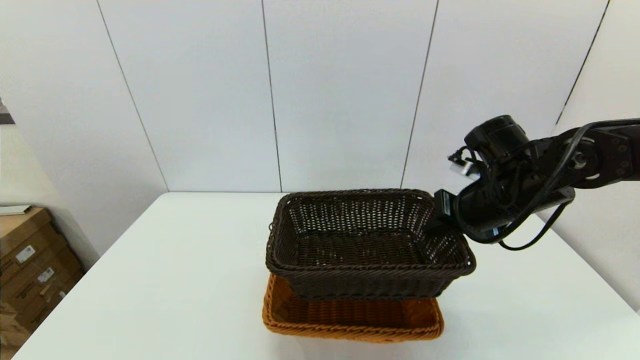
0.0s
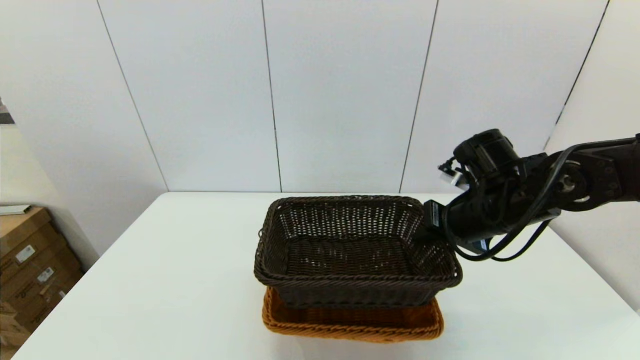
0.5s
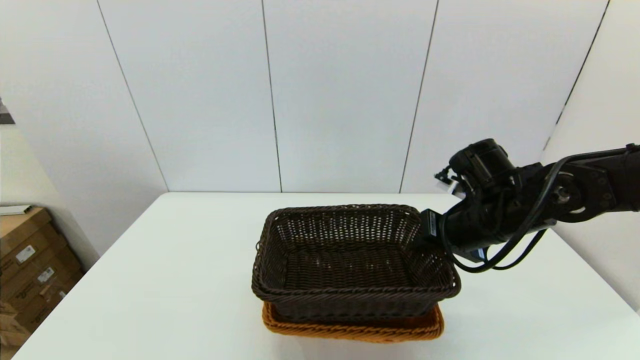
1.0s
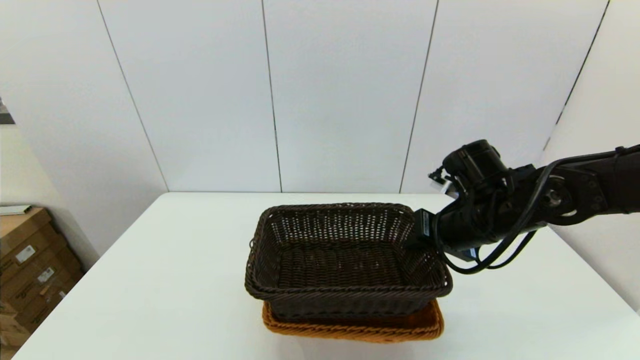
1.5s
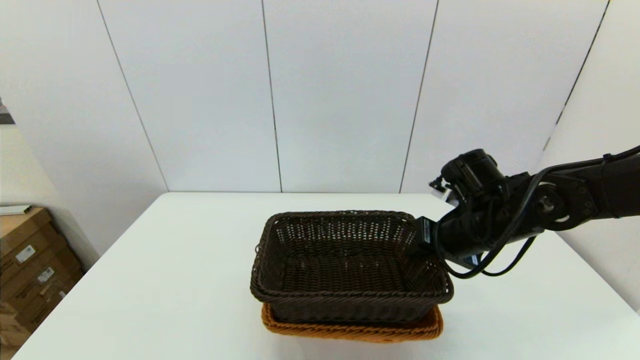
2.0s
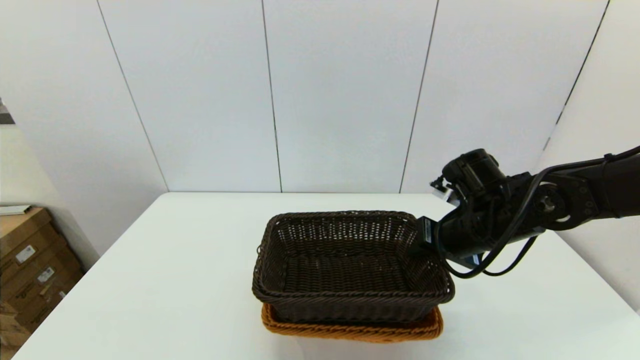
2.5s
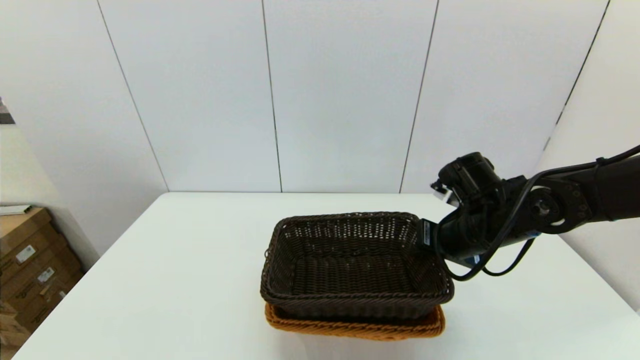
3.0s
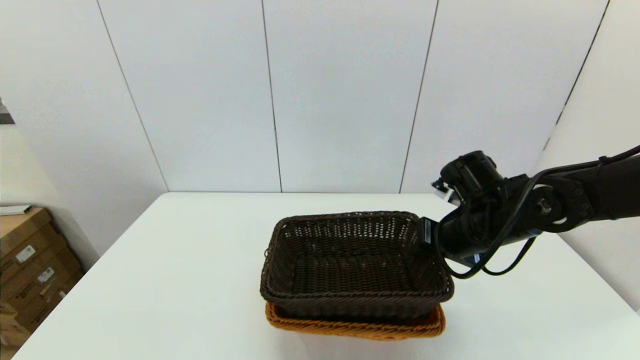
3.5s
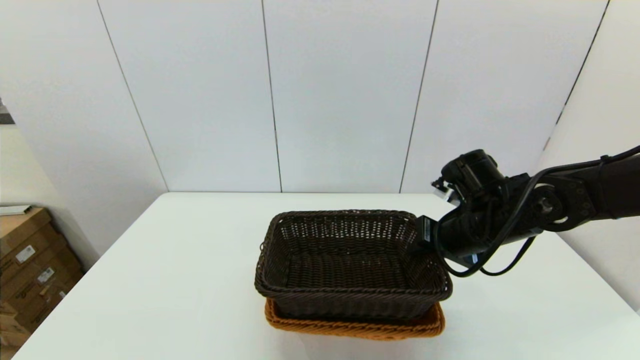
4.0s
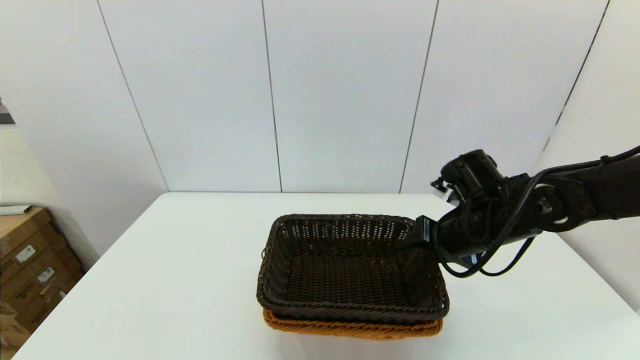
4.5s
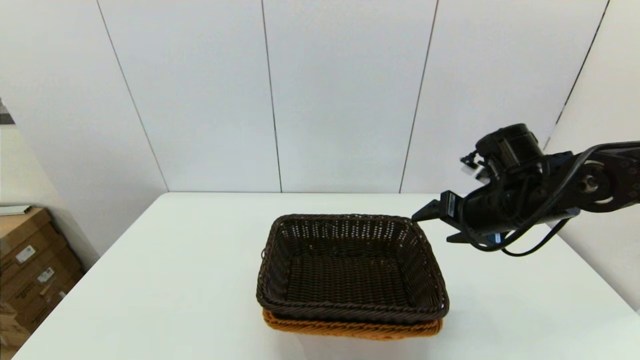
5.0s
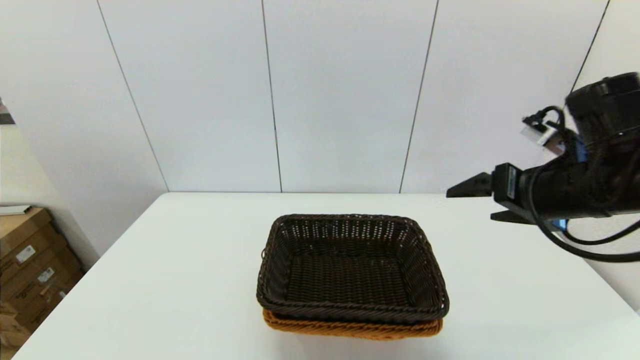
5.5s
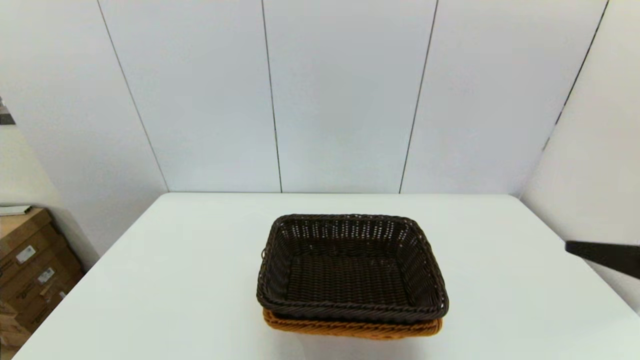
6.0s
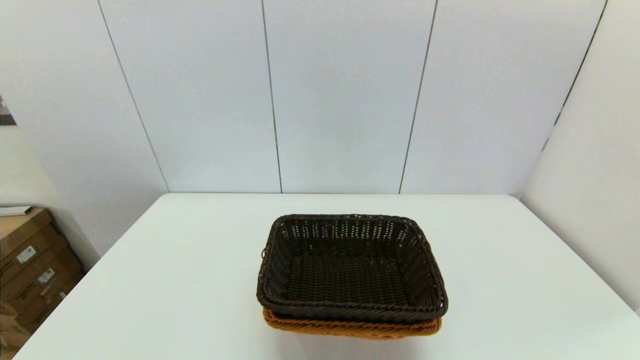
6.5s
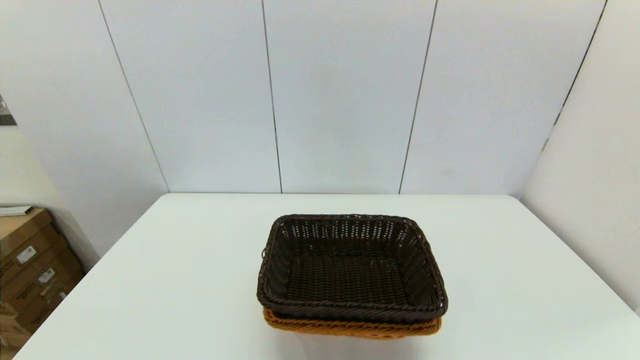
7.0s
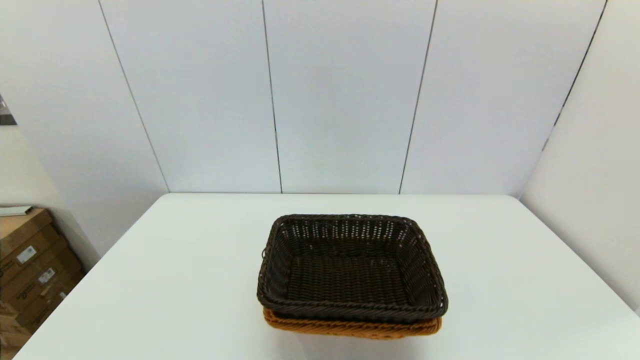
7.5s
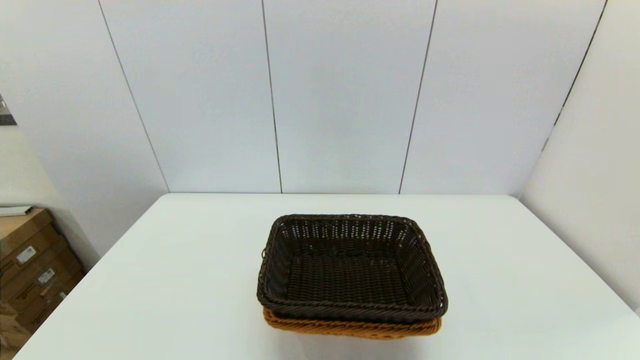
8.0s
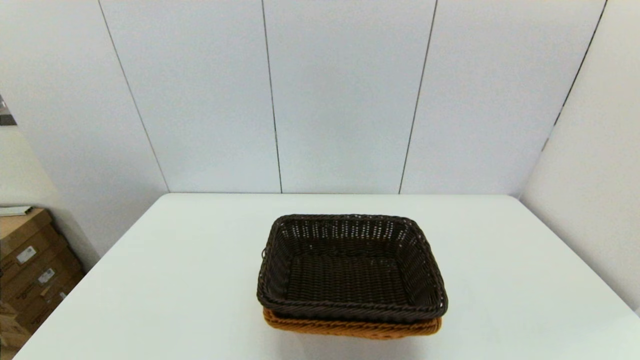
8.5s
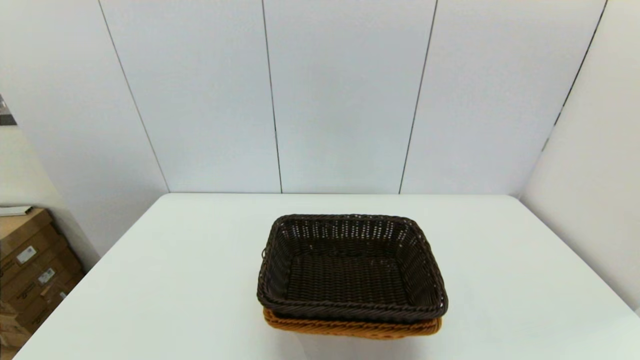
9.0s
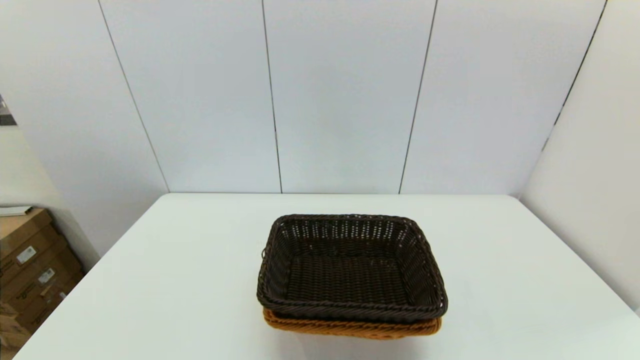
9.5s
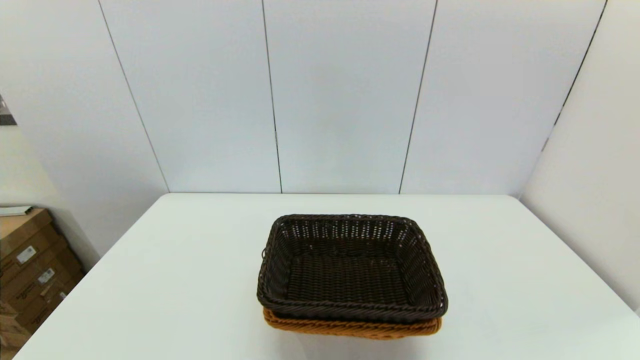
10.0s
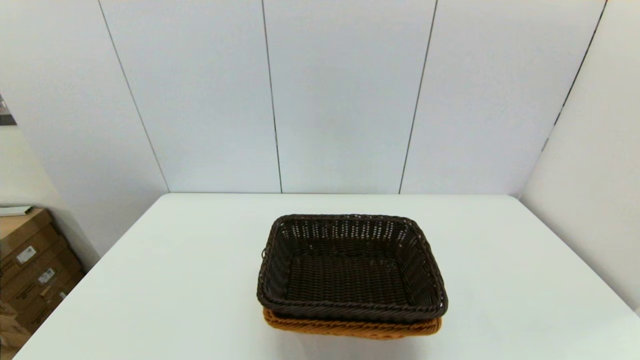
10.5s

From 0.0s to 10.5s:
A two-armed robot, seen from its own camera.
Task of the whole recording: stack a basket on top of another basket.
Step, from 0.0s to 5.0s: Place the dark basket into the light color basket with the right gripper.
From 0.0s to 2.0s: The right gripper ends up approximately 5 cm from where it was.
From 2.0s to 4.0s: The grippers make only small movements.
From 4.0s to 6.5s: The right gripper goes approximately 30 cm backward, and opens up.

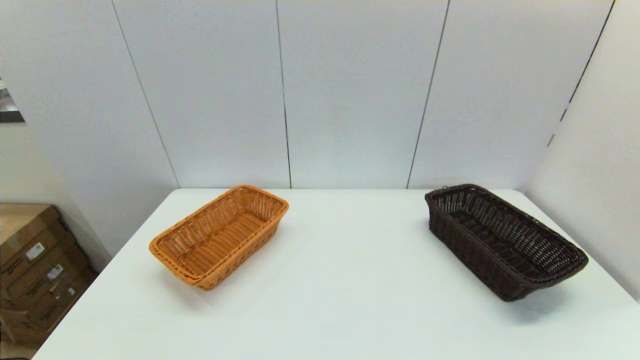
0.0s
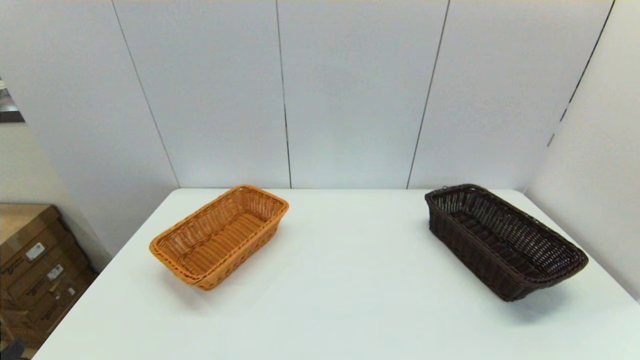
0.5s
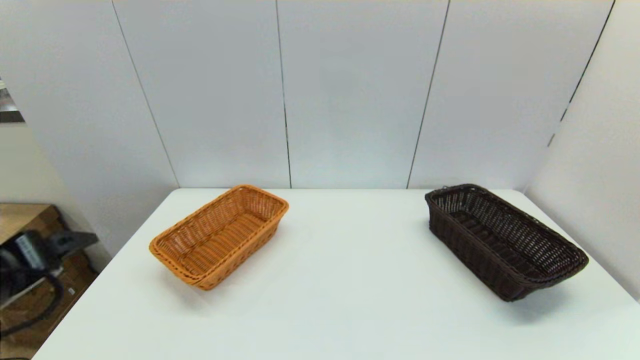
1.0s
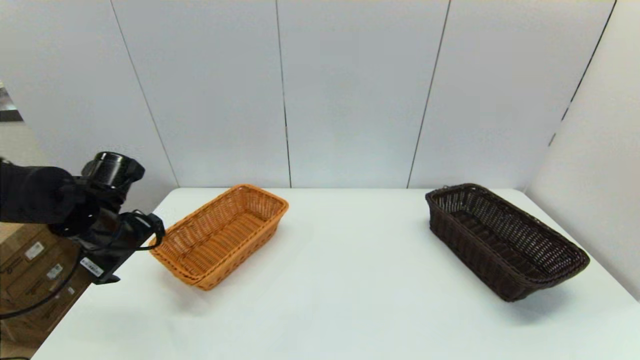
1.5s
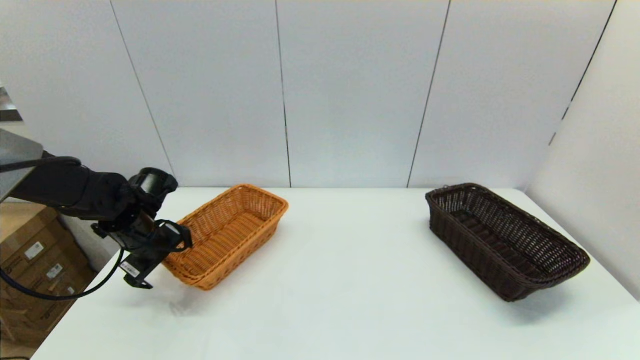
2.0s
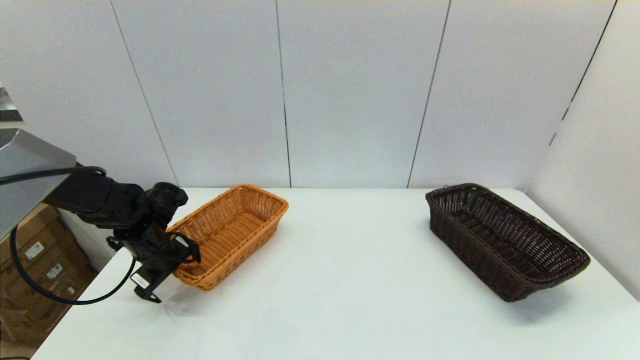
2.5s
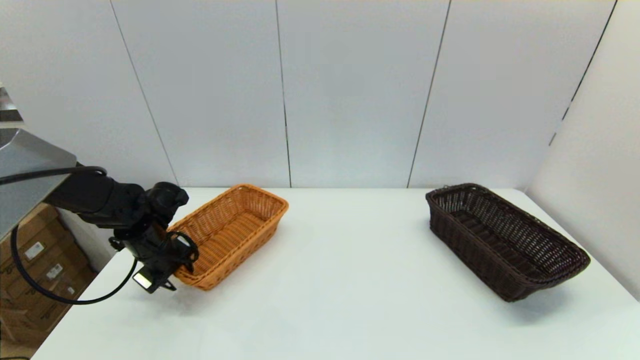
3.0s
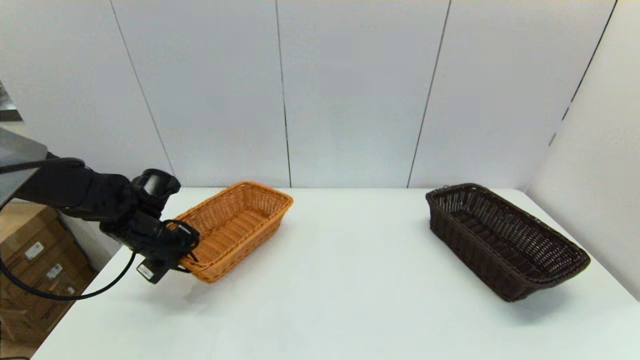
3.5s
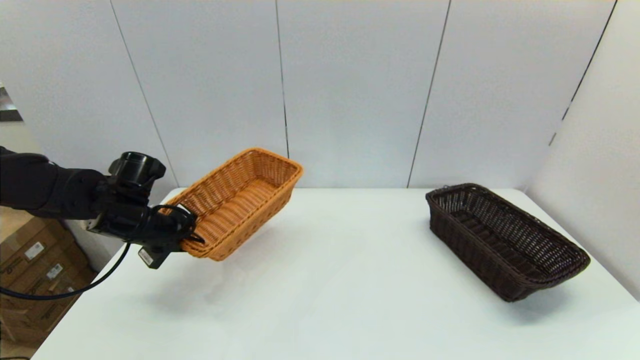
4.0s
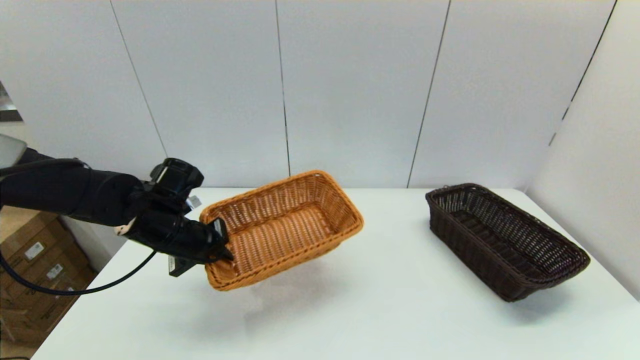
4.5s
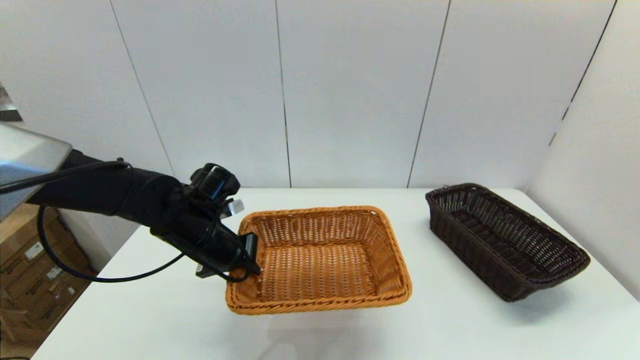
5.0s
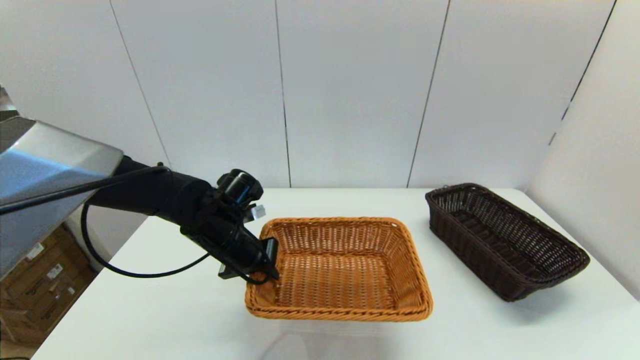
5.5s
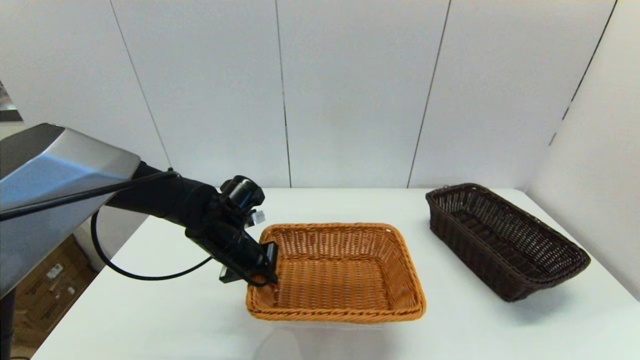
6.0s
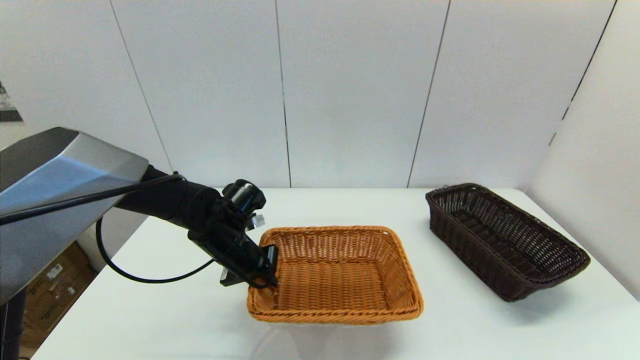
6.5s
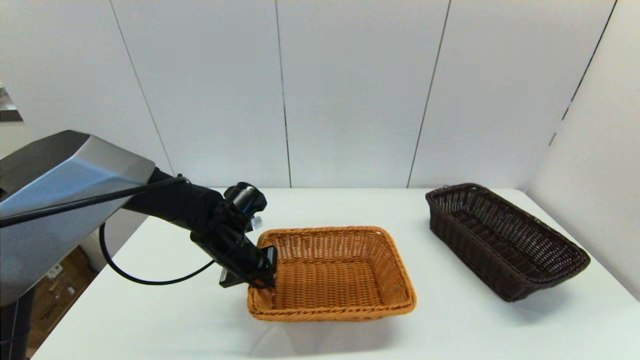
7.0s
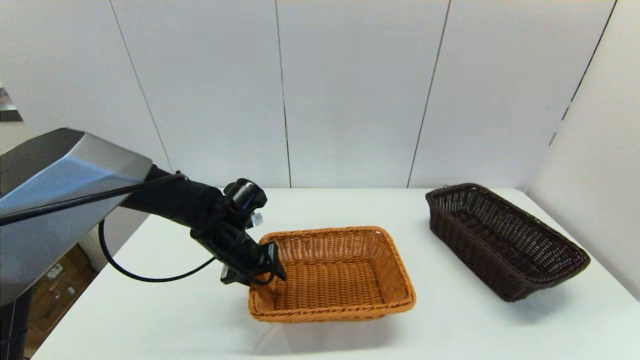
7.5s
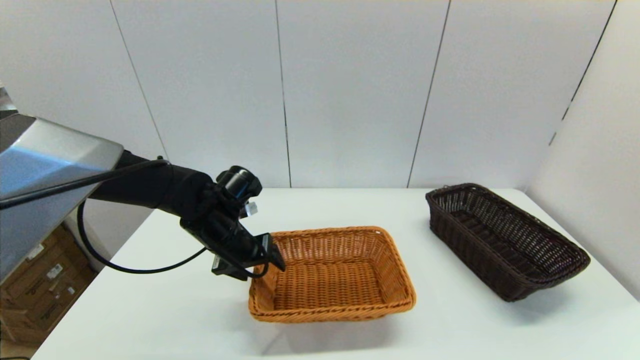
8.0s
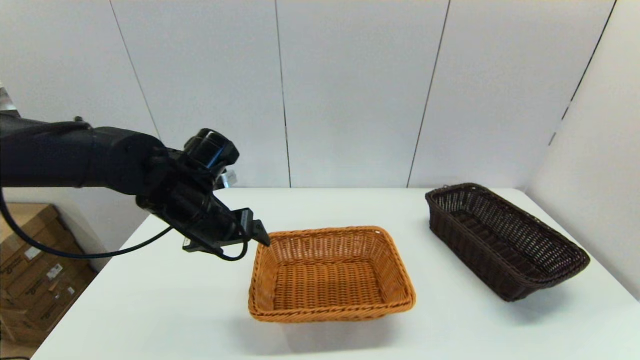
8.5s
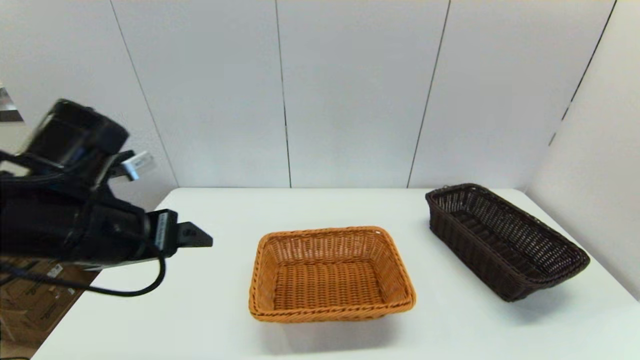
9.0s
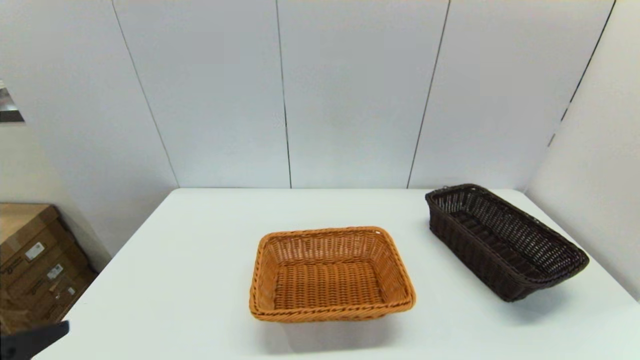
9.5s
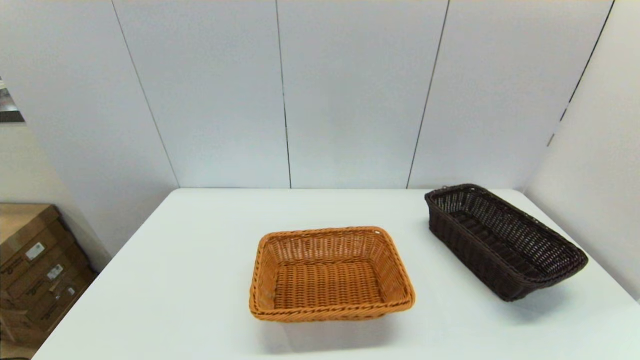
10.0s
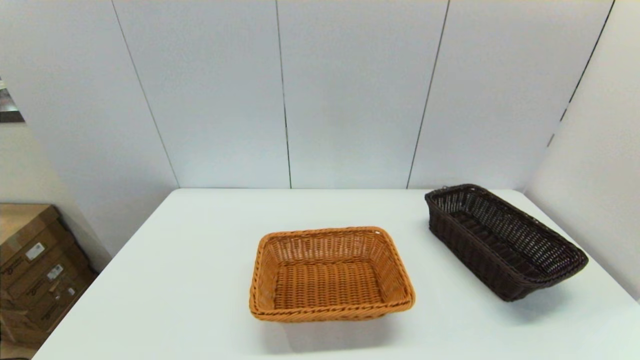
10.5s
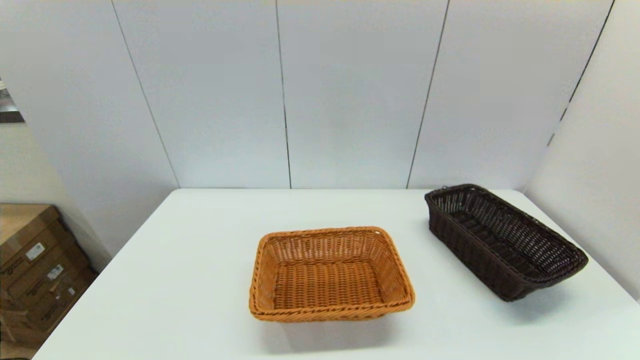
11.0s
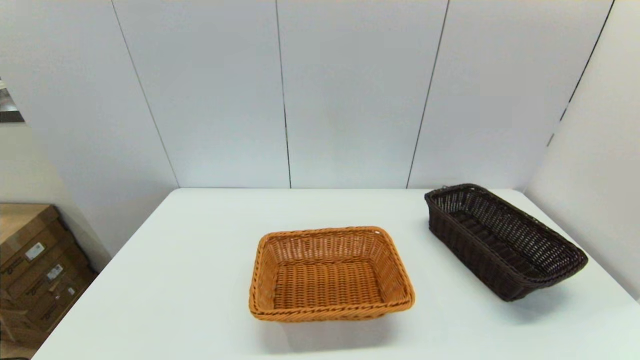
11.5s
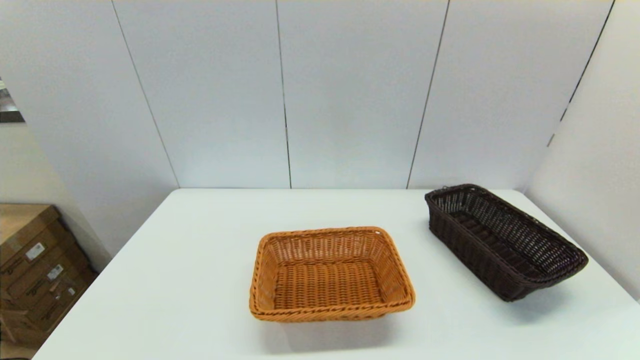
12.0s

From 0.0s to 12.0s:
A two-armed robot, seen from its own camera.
Task of the whole recording: stack a basket on top of another basket.
Step, from 0.0s to 3.0s: Grasp the light basket with the left gripper.
Step, from 3.5s to 8.5s: Place the light basket on the middle of the table with the left gripper.
From 0.0s to 2.0s: The left gripper shifts roughly 35 cm forward.
From 2.0s to 4.0s: The left gripper closes.
From 4.0s to 6.0s: The left gripper shifts roughly 15 cm to the right.
From 6.0s to 8.0s: The left gripper opens.
From 8.0s to 10.0s: The left gripper travels backward and to the left by roughly 40 cm.
